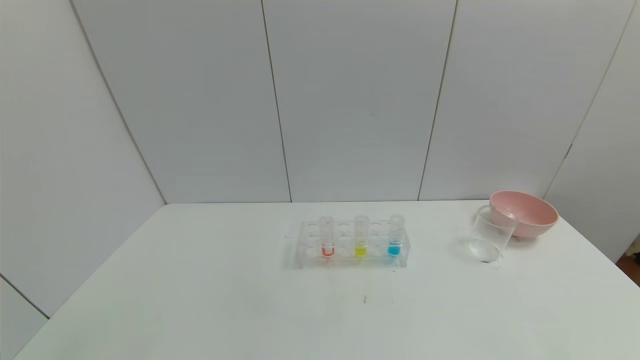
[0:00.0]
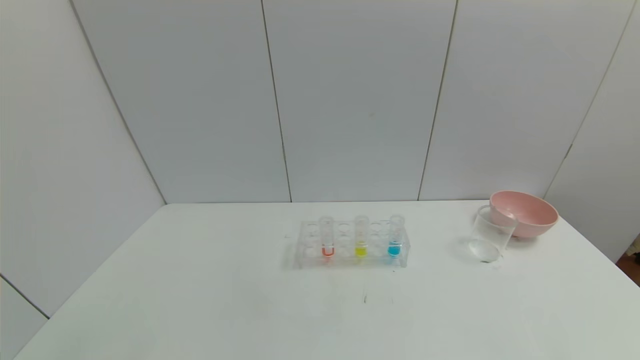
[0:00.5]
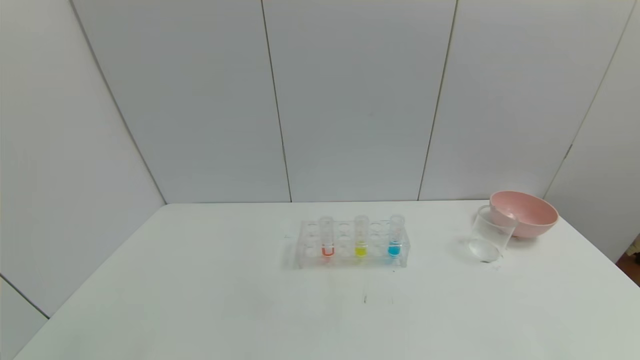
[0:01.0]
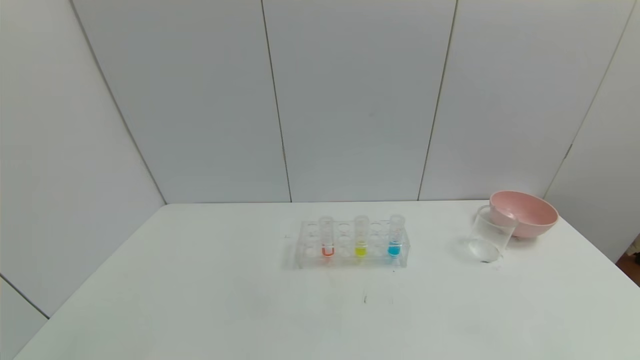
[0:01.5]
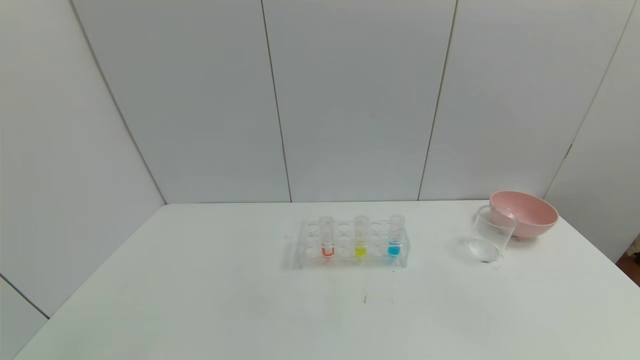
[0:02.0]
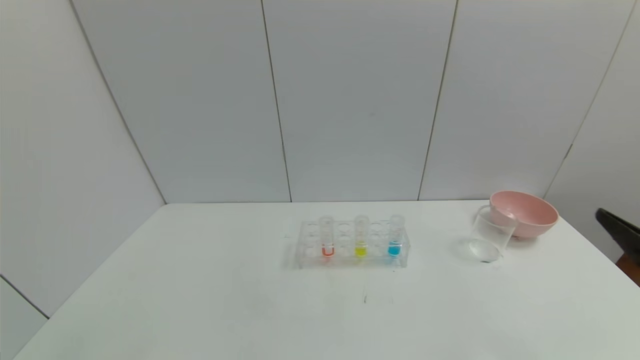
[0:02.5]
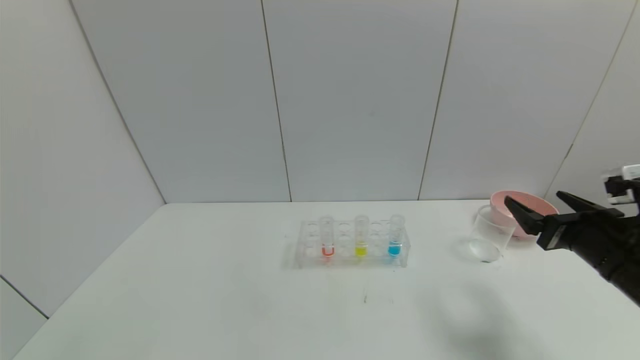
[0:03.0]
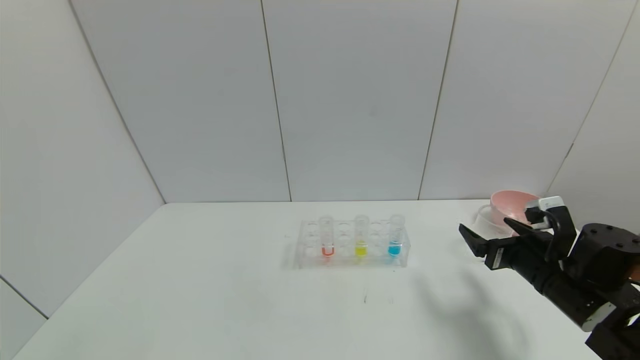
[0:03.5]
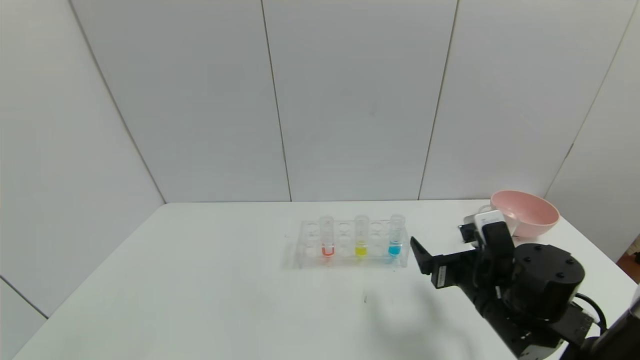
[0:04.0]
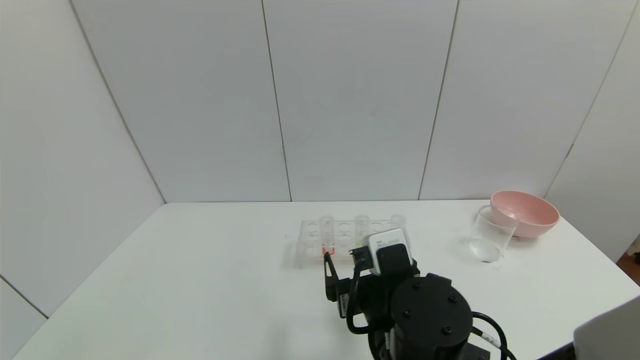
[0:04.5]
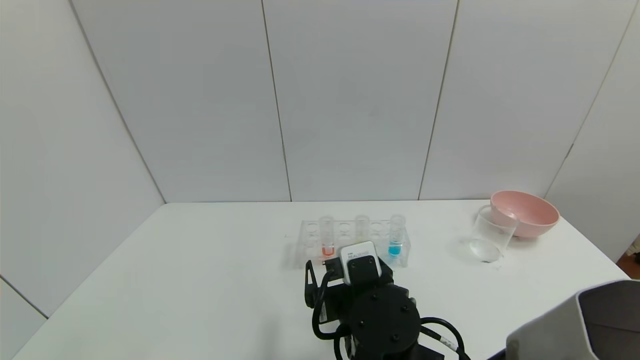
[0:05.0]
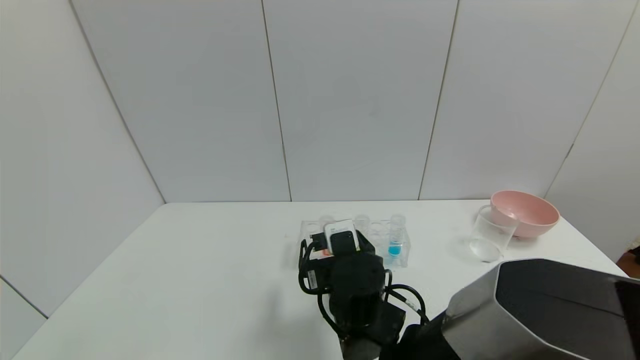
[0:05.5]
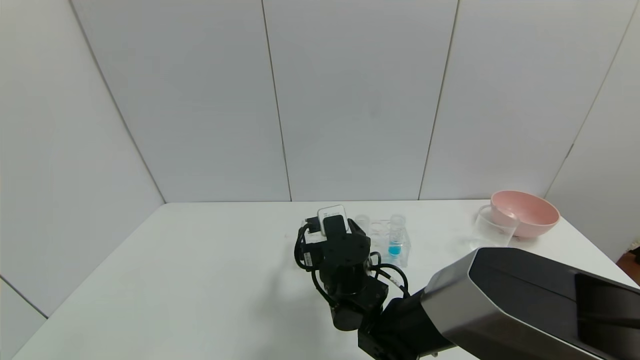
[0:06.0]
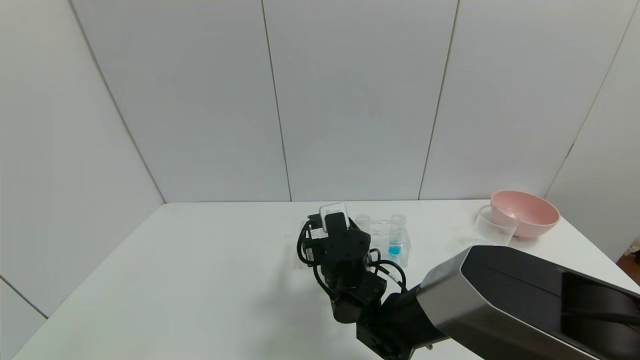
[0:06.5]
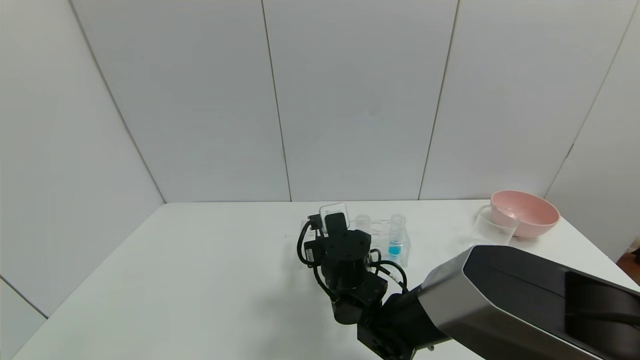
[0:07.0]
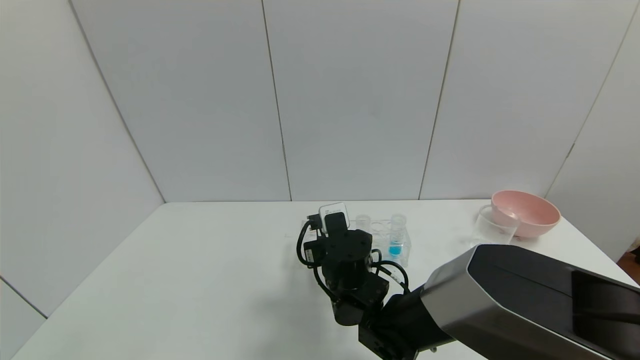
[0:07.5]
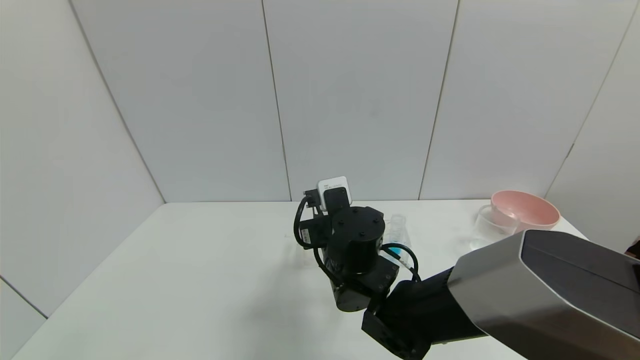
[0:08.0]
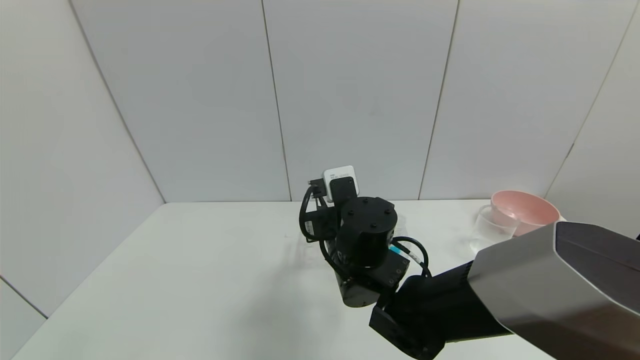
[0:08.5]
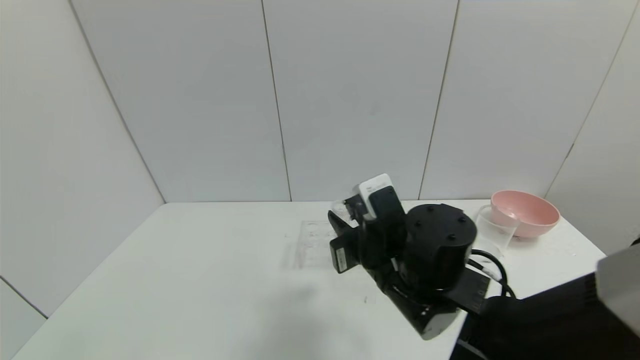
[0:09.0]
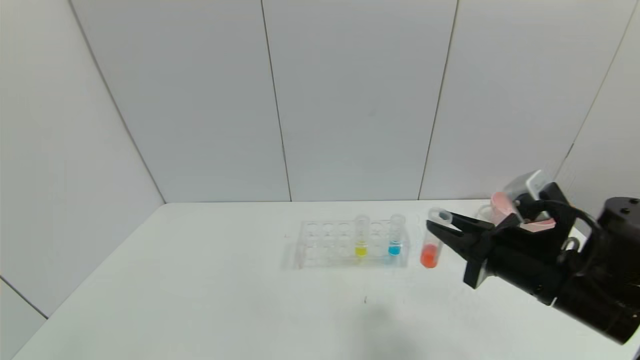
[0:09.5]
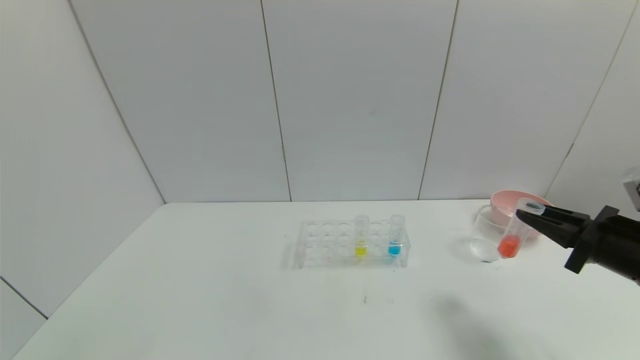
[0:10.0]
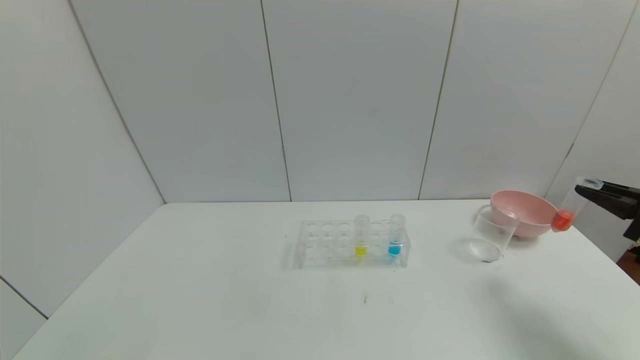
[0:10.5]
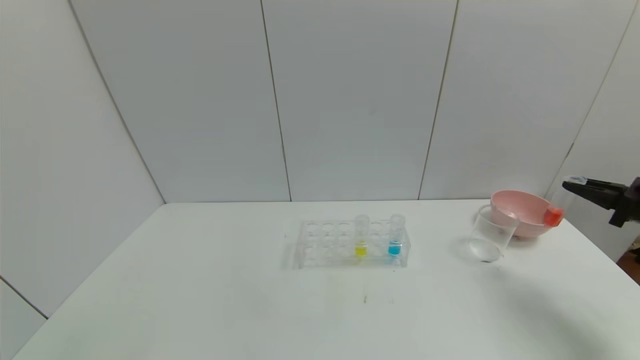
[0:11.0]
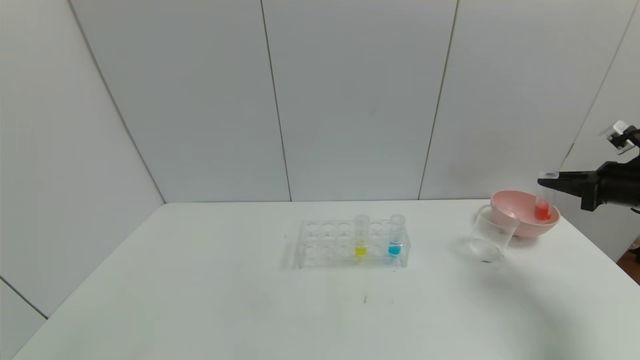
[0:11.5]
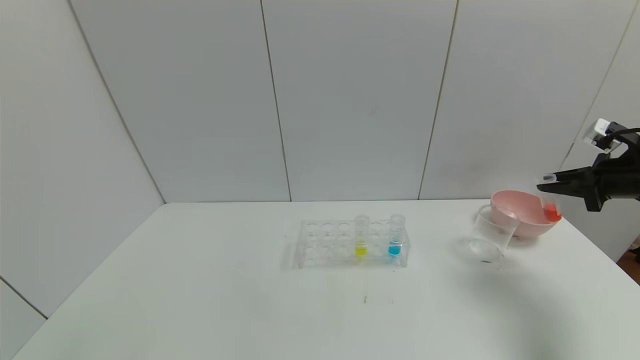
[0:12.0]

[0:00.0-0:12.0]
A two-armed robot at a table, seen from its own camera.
Task of the whole recording: pick up the test tube with red pigment and the test tube with blue pigment by grippers and pour them into the container.
Step, 0:00.0 to 0:09.5: Pick up the test tube containing the red reagent with right gripper.
0:02.0 to 0:04.0: The right gripper goes roughly 30 cm forward and to the left.
0:04.0 to 0:06.0: The right gripper goes approximately 20 cm to the left.
0:06.0 to 0:08.0: The right gripper is displaced upward by about 5 cm, and closes its fingers.
0:08.0 to 0:10.0: The right gripper moves to the right, some 35 cm.
0:10.0 to 0:12.0: The right gripper is displaced forward and to the right by some 15 cm.

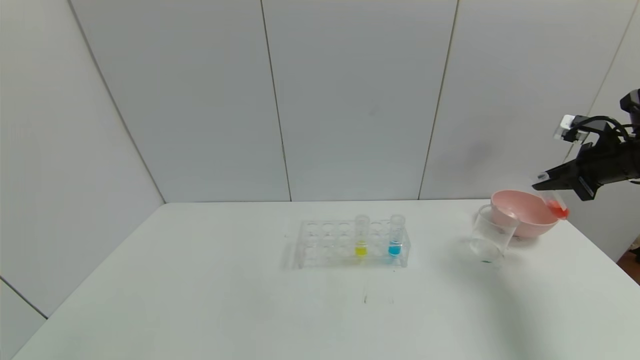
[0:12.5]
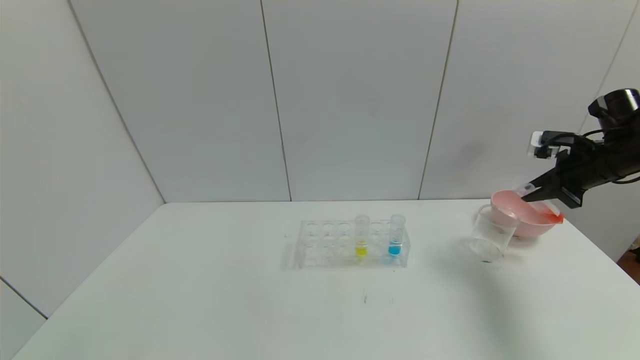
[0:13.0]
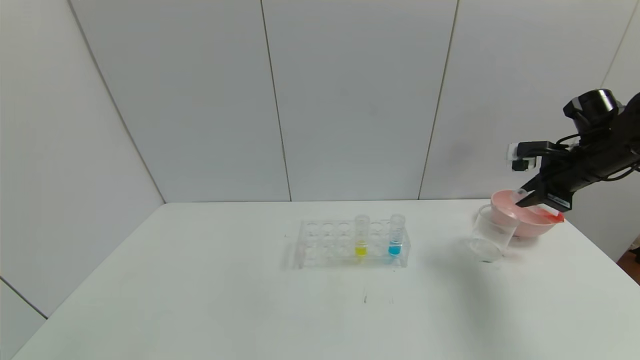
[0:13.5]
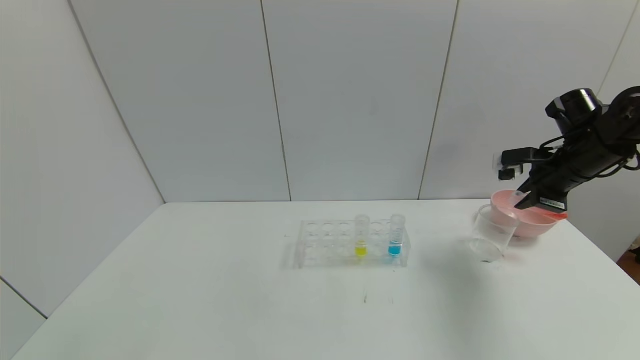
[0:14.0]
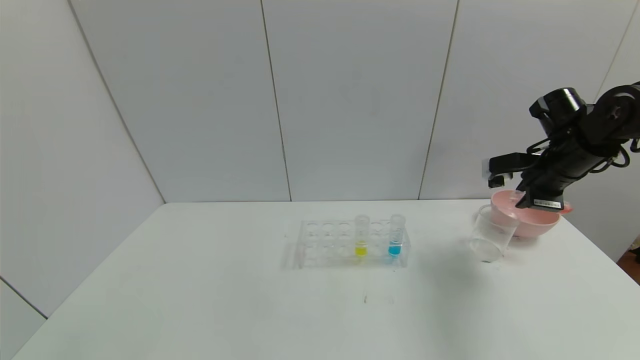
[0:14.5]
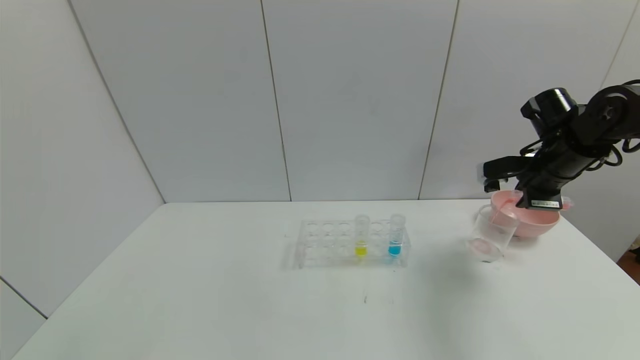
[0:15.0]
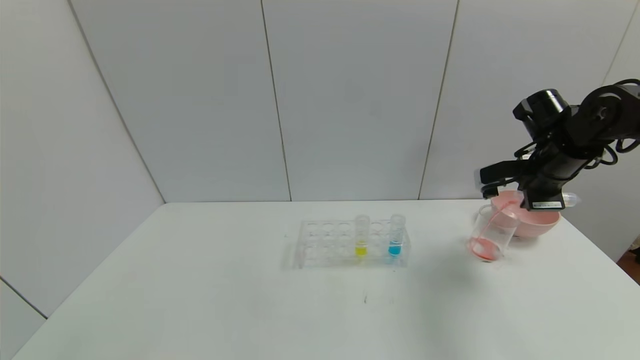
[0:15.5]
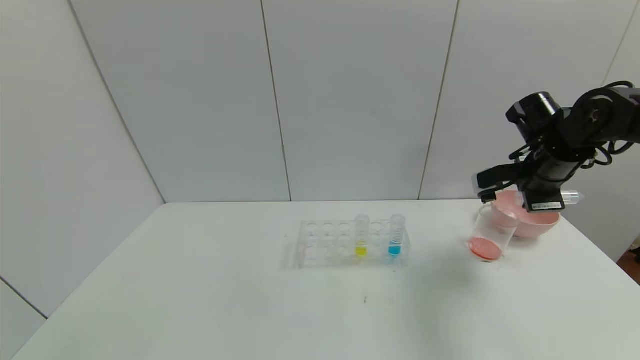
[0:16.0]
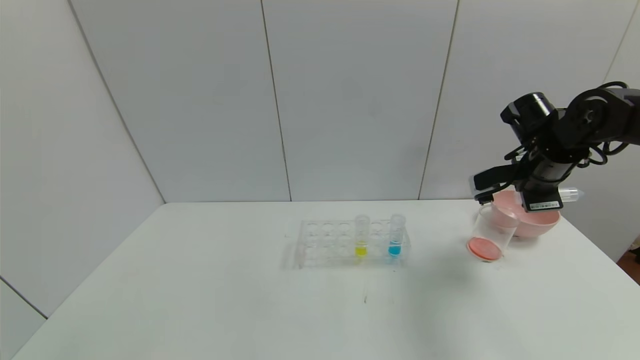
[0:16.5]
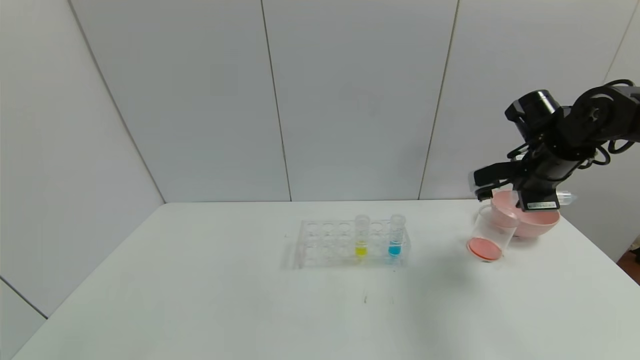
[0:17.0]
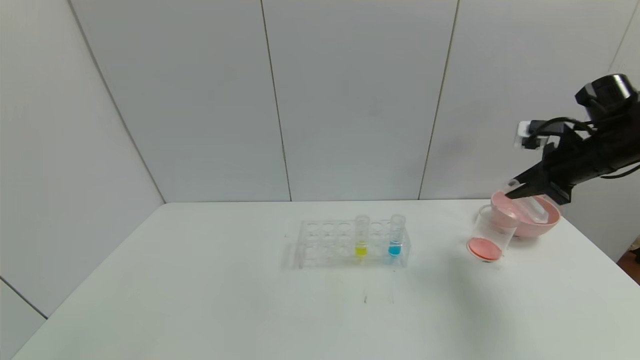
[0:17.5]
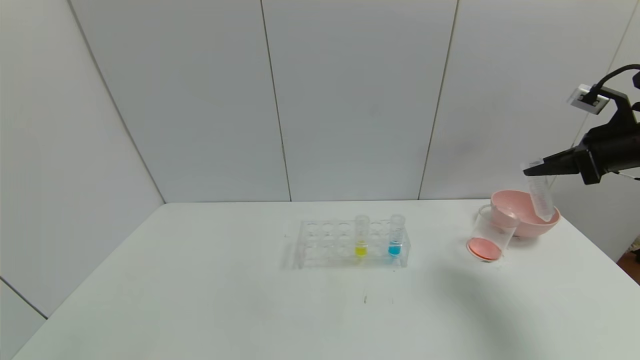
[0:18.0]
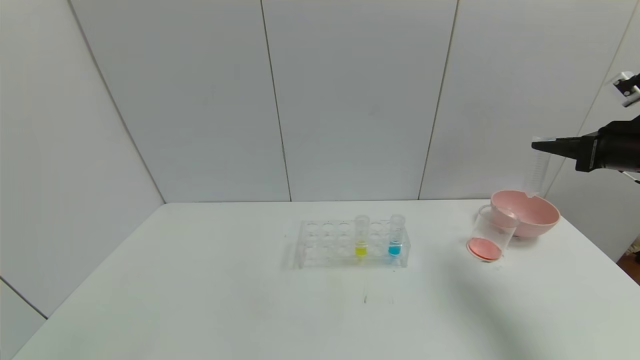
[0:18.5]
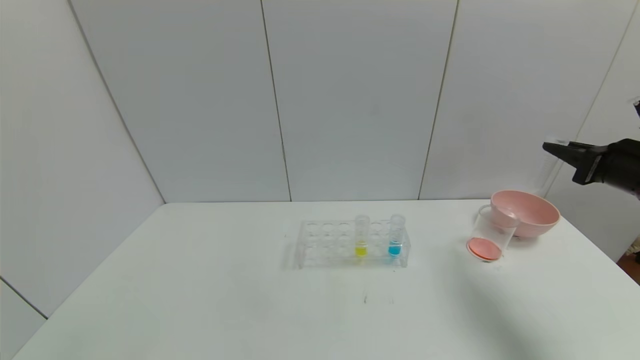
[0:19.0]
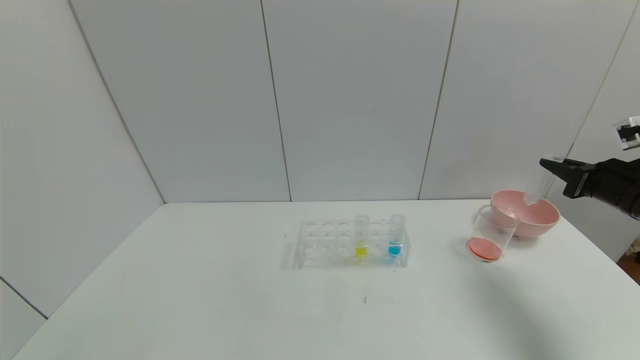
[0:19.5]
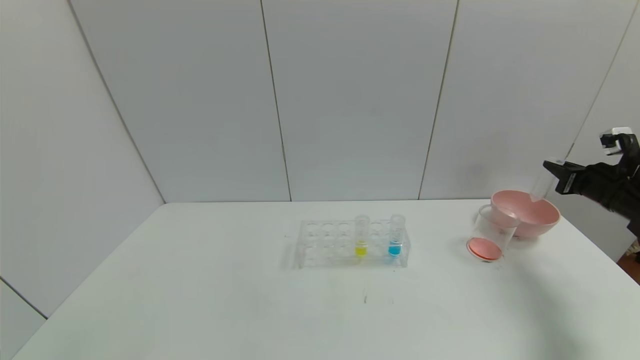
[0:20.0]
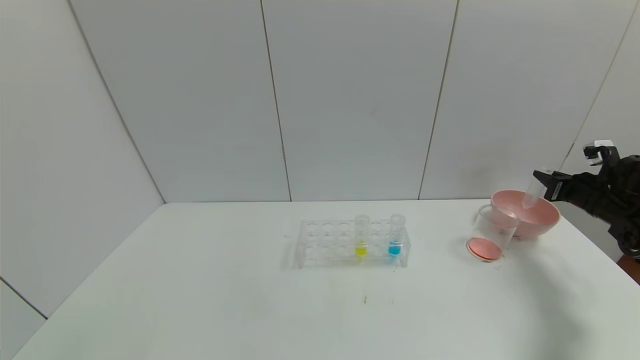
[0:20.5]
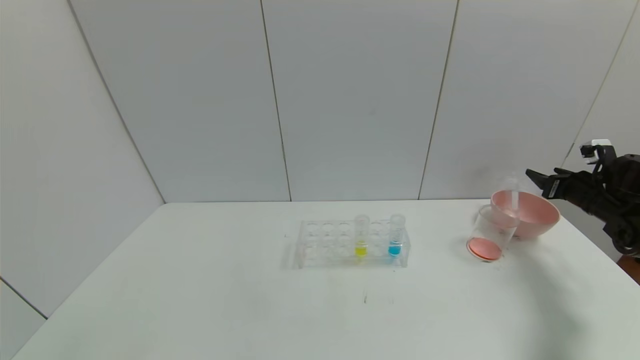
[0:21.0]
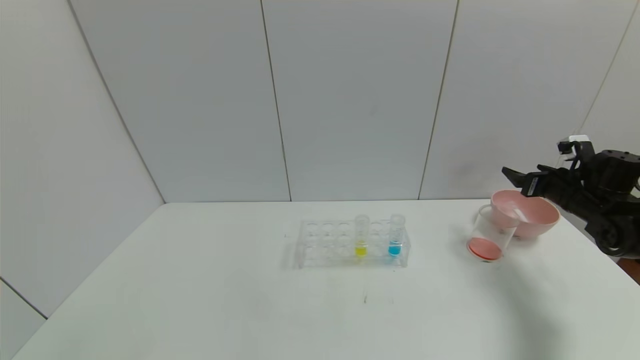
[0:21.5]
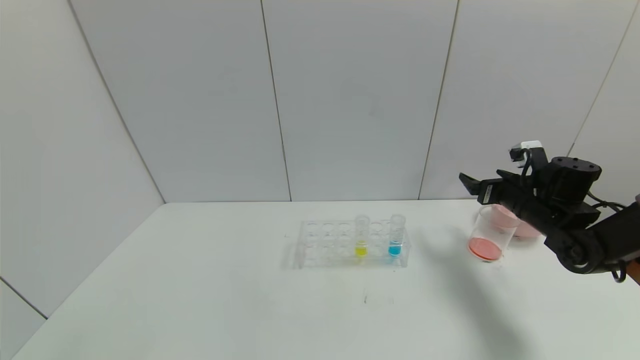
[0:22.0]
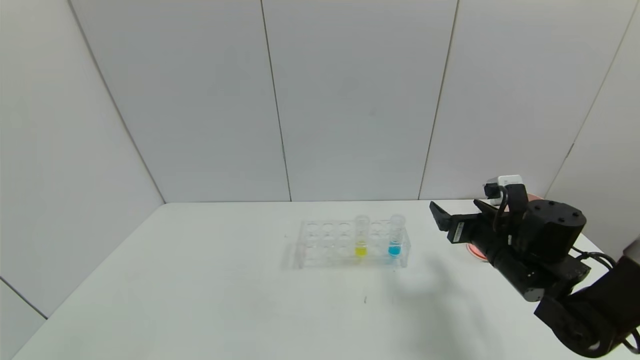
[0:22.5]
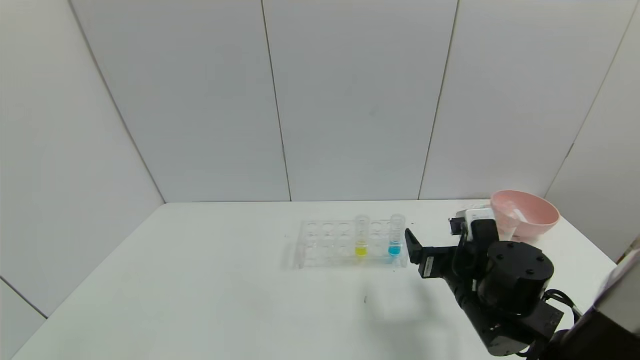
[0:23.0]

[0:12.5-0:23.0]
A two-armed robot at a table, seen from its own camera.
Task of the whole recording: pick up the test tube with red pigment and the test tube with blue pigment by grippers and pour them into the container.
Step, 0:12.5 to 0:18.0: Pour the red reagent into the graduated cylinder with right gripper.
Step, 0:18.5 to 0:22.0: Place the test tube into the bowl with right gripper.
0:12.5 to 0:14.5: The right gripper moves to the left, some 10 cm.
0:14.5 to 0:16.5: The grippers move only a little.
0:16.5 to 0:19.0: The right gripper moves to the right and backward, about 15 cm.
0:19.0 to 0:21.0: The right gripper moves forward, downward and to the right, roughly 15 cm, and opens its fingers.
0:21.0 to 0:23.0: The right gripper travels to the left and backward by roughly 35 cm.
